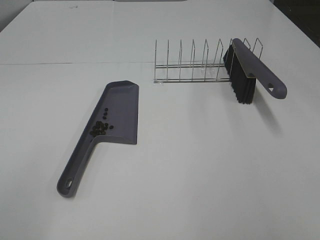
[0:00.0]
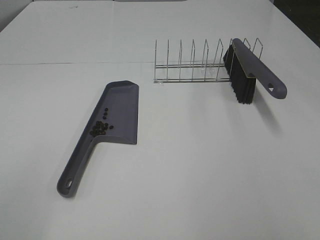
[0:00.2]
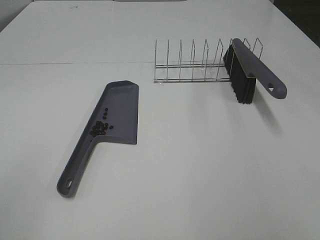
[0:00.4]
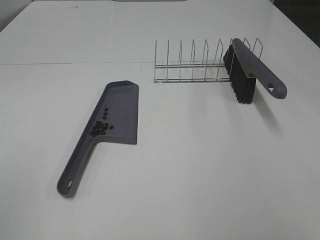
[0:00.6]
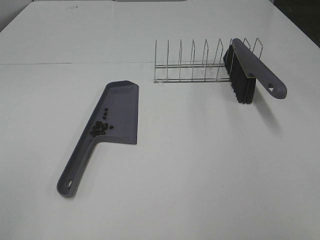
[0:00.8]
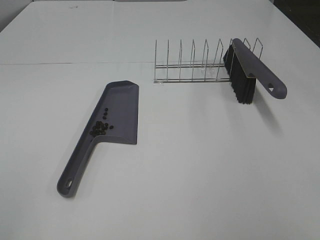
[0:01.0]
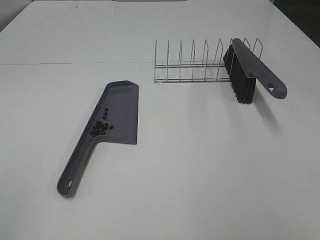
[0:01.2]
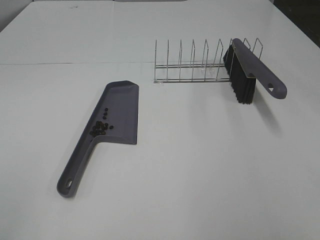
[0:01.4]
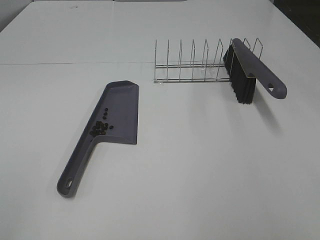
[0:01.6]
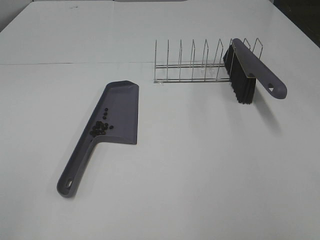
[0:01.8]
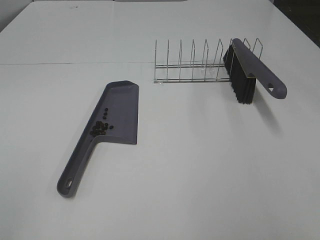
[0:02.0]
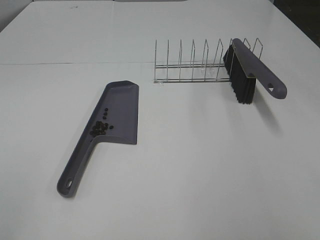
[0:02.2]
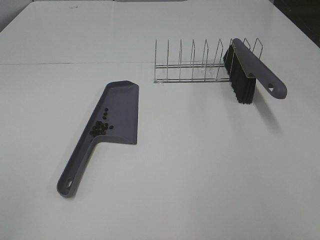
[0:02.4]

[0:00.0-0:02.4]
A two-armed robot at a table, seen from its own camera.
Task of the whole recording: Sweep Coffee Bean.
0:01.2 to 0:02.4: Both grippers stay put.

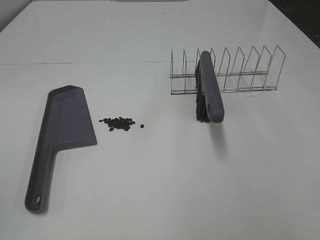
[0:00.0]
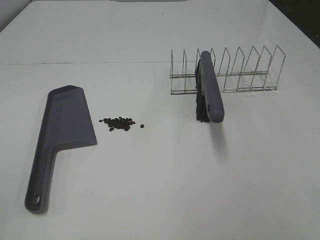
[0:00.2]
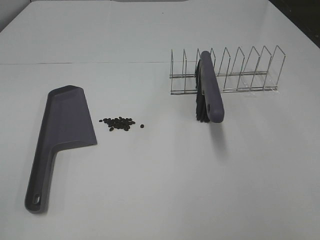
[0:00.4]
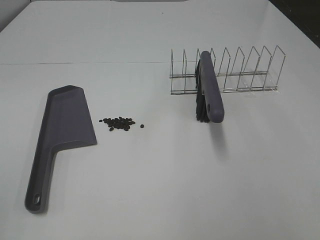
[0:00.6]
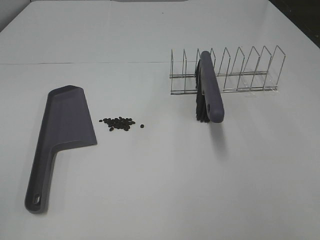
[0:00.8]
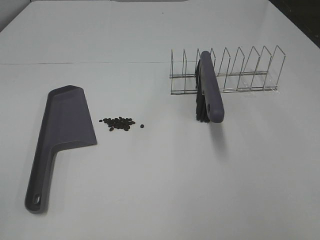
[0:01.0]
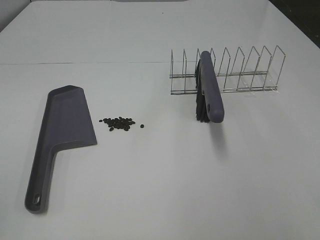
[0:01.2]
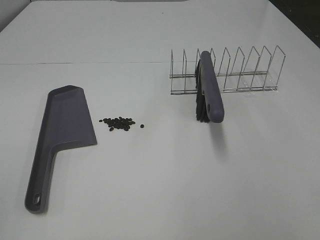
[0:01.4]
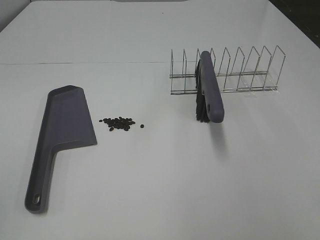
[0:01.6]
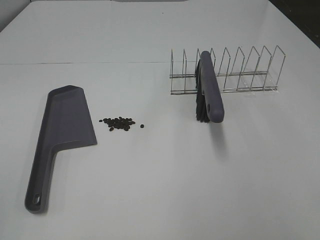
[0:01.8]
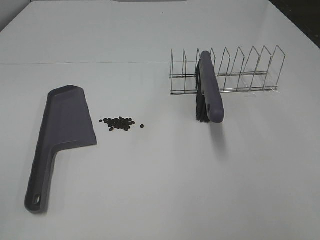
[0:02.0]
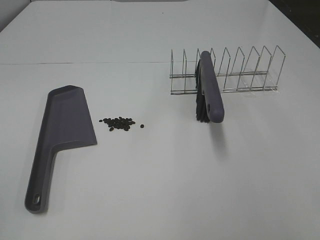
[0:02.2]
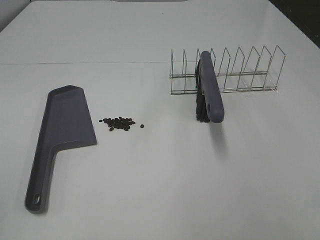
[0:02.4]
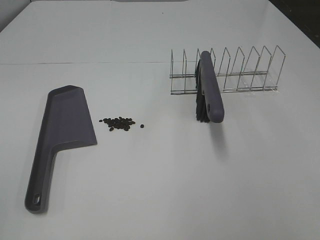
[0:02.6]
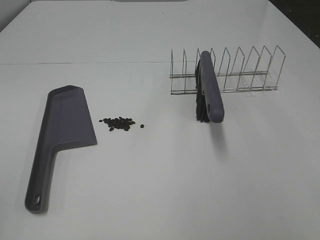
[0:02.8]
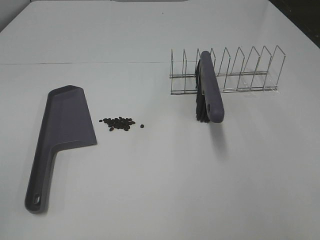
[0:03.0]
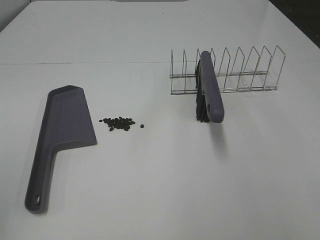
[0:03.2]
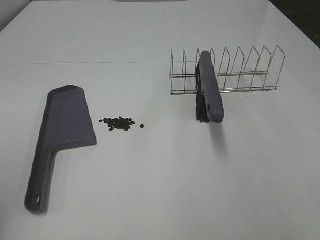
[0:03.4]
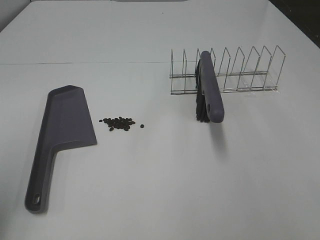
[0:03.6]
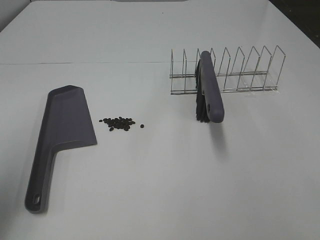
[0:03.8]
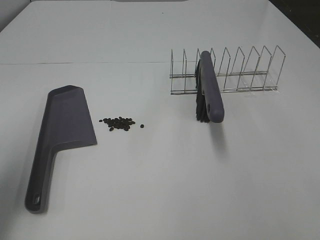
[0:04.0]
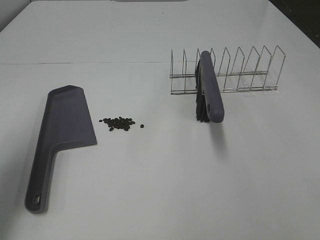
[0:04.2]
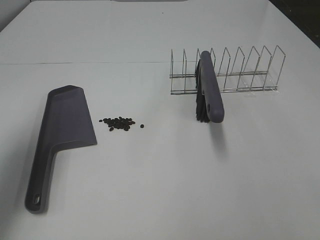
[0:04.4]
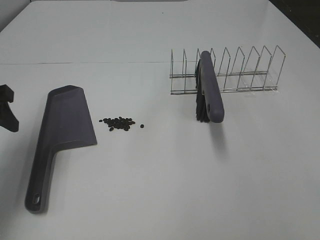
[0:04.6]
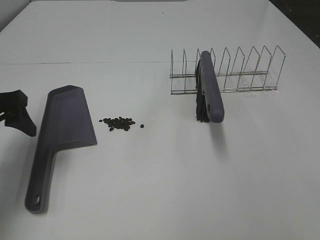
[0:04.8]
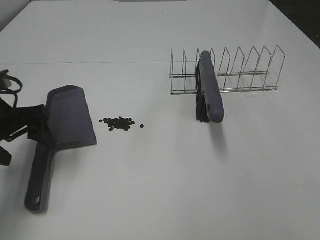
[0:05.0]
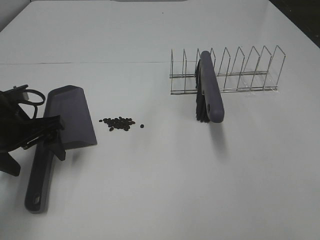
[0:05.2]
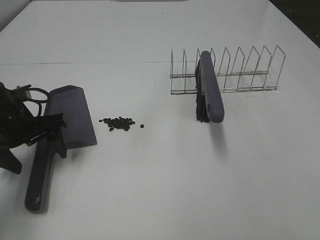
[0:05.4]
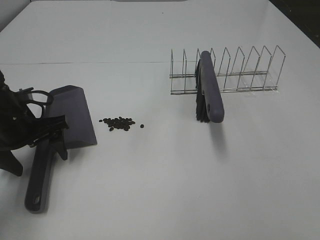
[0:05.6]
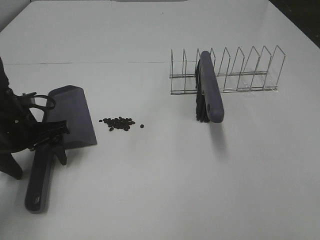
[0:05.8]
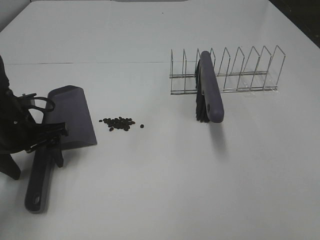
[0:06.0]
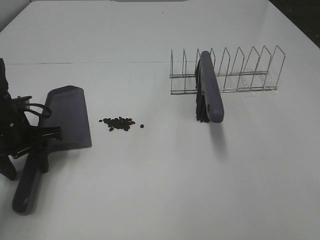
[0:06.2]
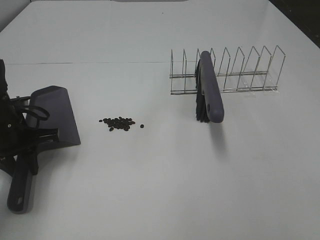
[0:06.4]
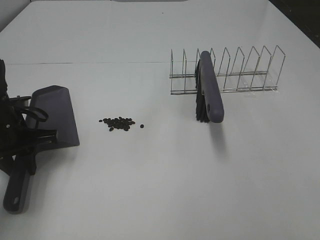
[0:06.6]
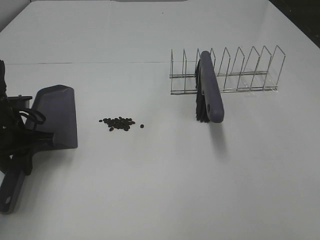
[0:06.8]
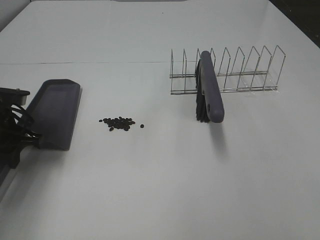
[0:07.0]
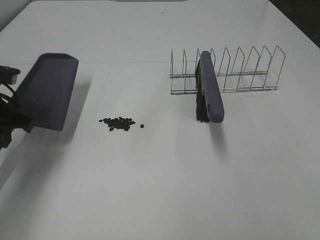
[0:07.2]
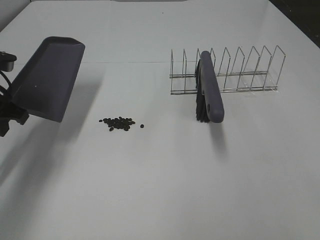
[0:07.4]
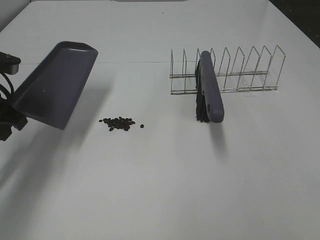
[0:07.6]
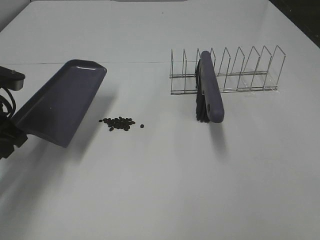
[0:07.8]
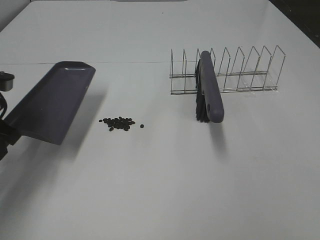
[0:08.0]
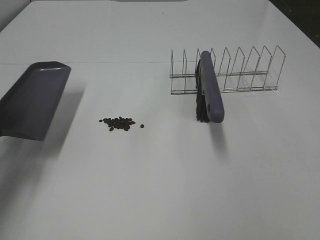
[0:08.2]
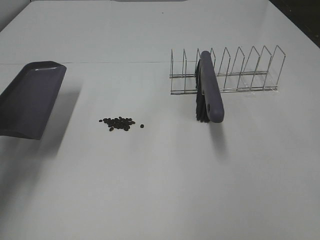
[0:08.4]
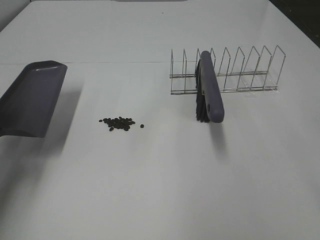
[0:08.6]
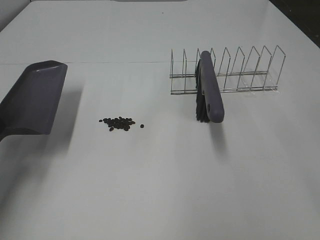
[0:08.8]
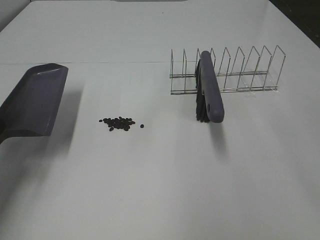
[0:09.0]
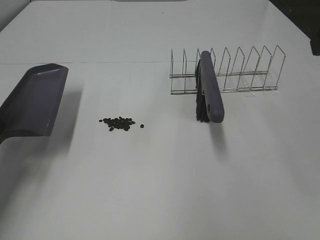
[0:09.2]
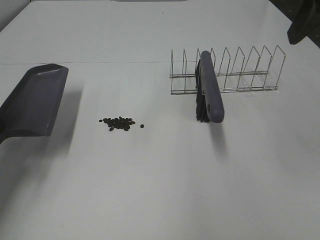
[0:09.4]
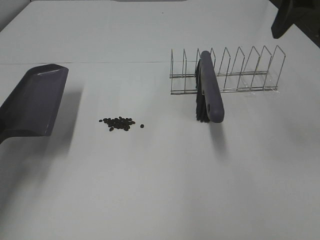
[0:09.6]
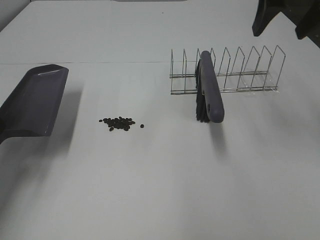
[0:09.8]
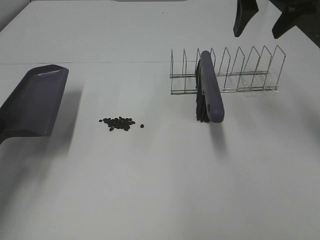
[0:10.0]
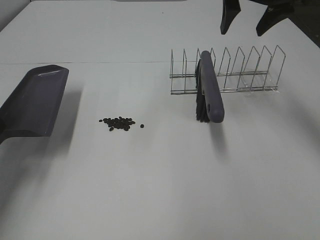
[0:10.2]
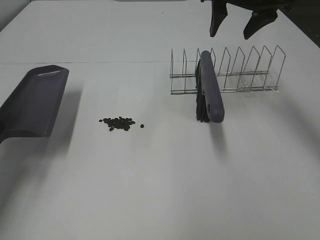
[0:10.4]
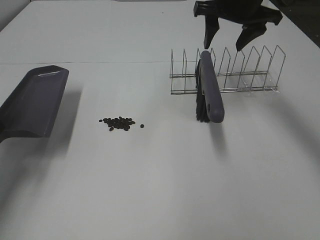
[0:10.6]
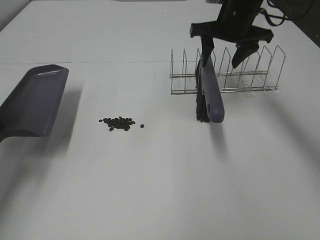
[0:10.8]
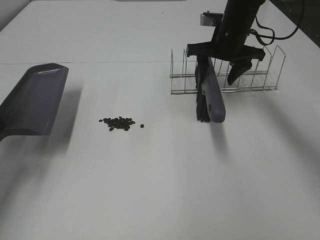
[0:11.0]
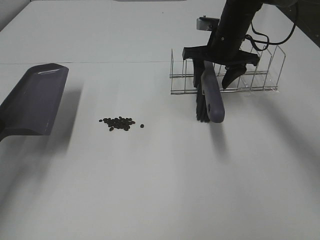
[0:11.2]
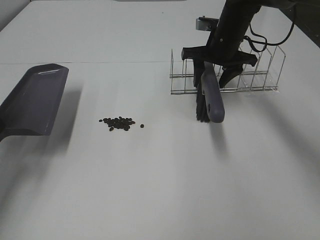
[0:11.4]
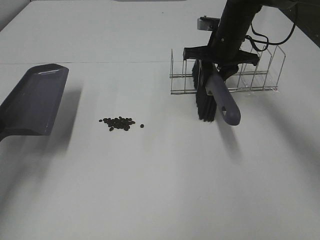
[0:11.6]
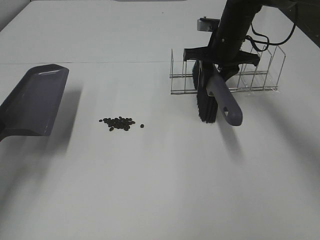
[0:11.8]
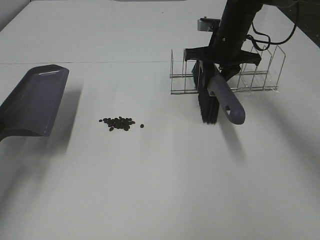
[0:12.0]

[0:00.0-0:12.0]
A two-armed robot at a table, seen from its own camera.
Task of the whole recording: Sweep Coffee Bean.
Step, 0:00.0 to 0:06.4: Left hand: grab the dustpan.
Step, 0:07.8 to 0:11.4: Right hand:grab the broom.
0:00.0 to 0:01.6: Both grippers stay about where they are.
0:03.0 to 0:04.4: The left gripper moves forward, approximately 25 cm.
0:04.4 to 0:06.0: The left gripper moves downward, forward and to the right, roughly 15 cm, and opens its fingers.
0:06.0 to 0:07.6: The left gripper travels upward by about 10 cm, and closes its fingers.
0:07.6 to 0:09.0: The left gripper shifts by about 5 cm.
0:09.0 to 0:10.4: The right gripper heads forward, covering roughly 25 cm.
0:10.4 to 0:12.0: The right gripper is displaced downward by about 10 cm, and closes its fingers.

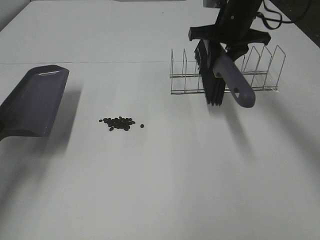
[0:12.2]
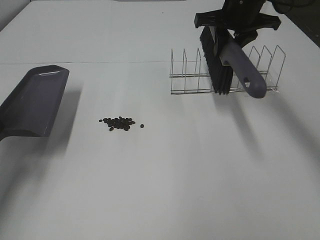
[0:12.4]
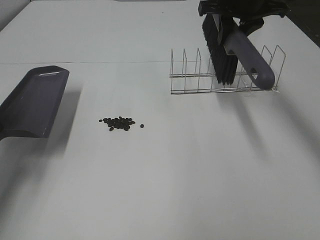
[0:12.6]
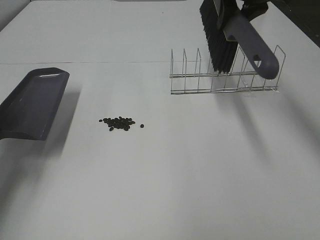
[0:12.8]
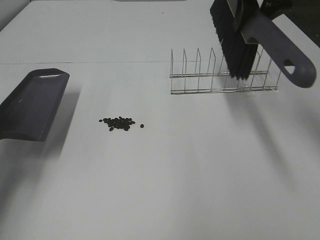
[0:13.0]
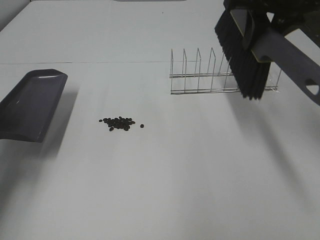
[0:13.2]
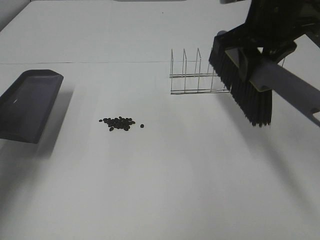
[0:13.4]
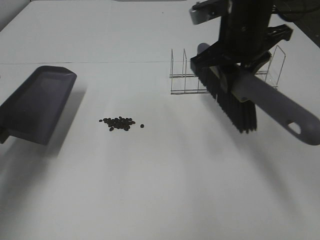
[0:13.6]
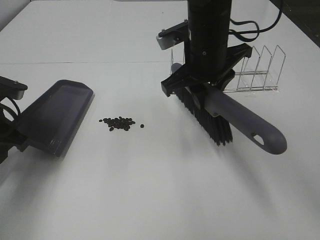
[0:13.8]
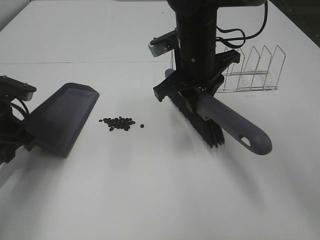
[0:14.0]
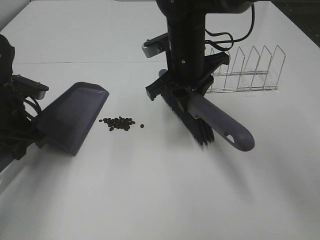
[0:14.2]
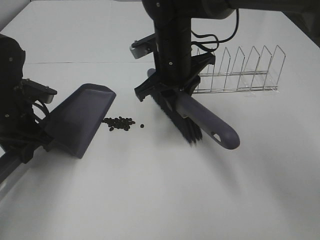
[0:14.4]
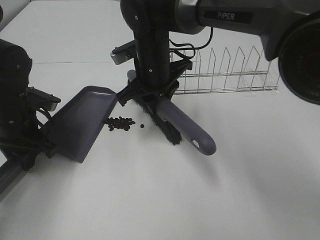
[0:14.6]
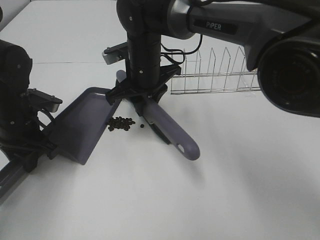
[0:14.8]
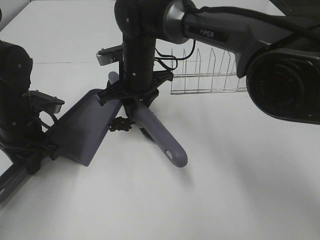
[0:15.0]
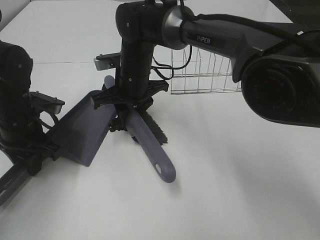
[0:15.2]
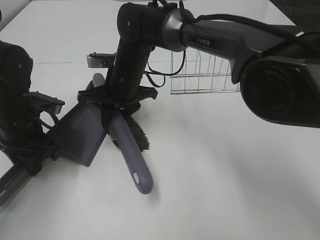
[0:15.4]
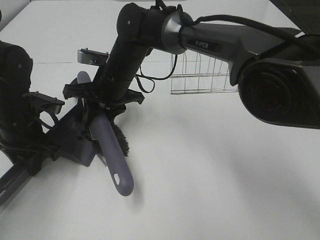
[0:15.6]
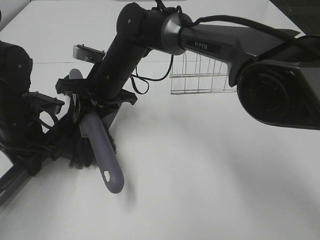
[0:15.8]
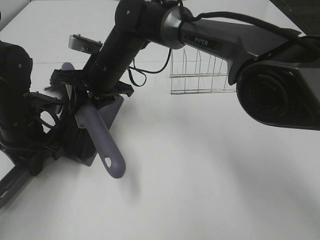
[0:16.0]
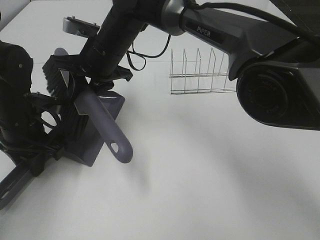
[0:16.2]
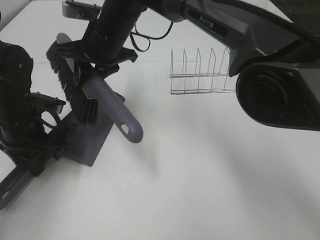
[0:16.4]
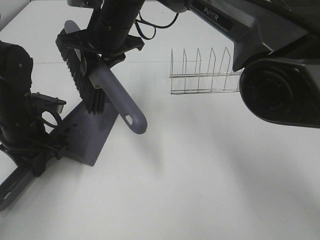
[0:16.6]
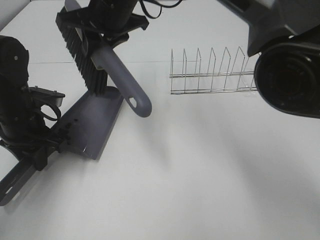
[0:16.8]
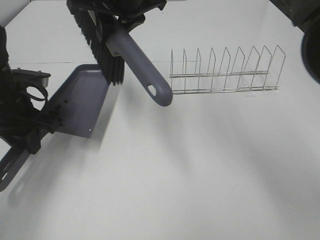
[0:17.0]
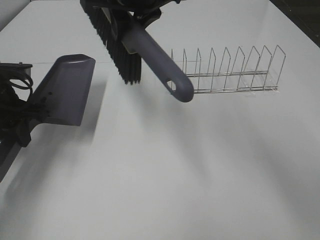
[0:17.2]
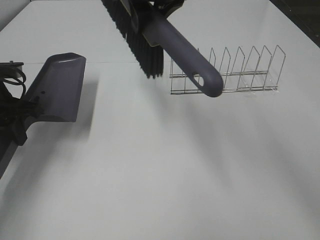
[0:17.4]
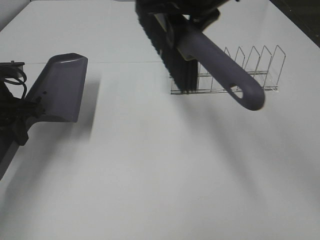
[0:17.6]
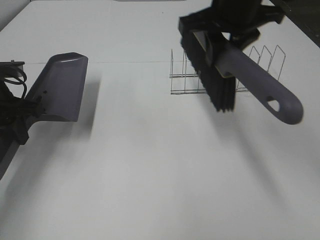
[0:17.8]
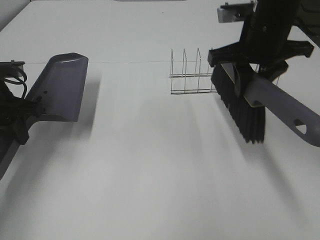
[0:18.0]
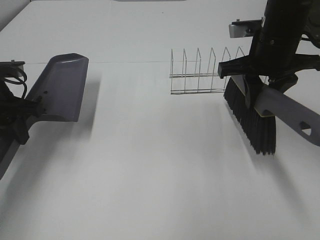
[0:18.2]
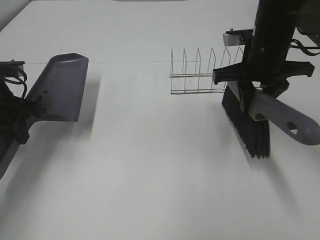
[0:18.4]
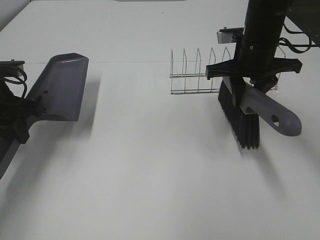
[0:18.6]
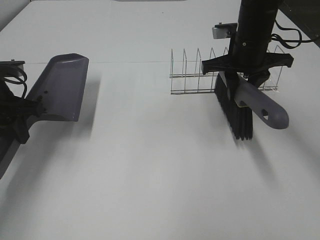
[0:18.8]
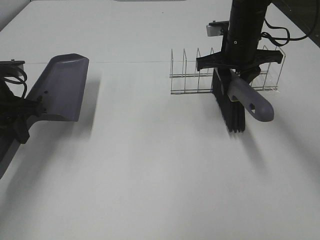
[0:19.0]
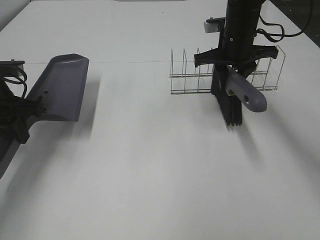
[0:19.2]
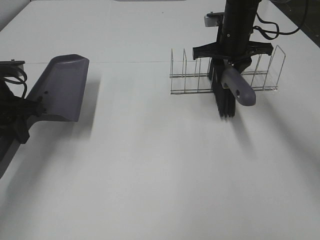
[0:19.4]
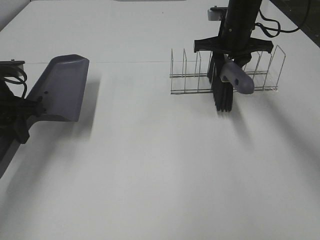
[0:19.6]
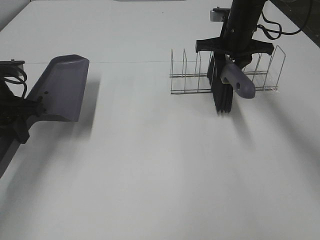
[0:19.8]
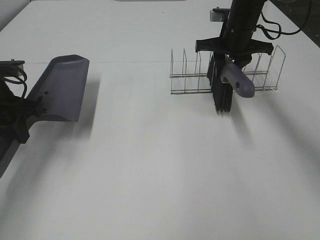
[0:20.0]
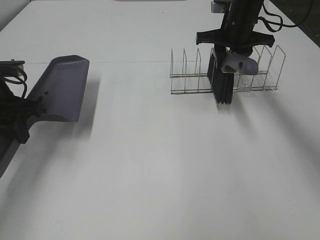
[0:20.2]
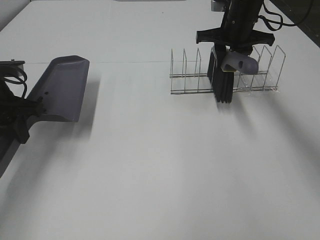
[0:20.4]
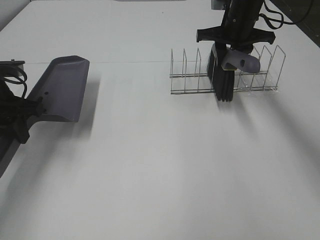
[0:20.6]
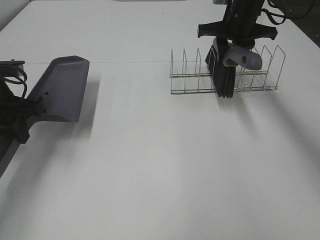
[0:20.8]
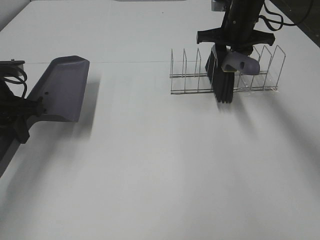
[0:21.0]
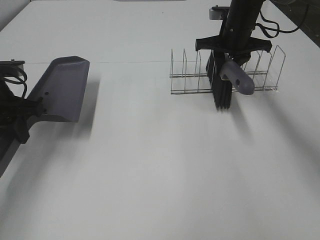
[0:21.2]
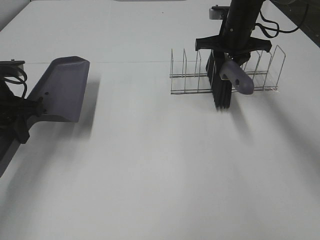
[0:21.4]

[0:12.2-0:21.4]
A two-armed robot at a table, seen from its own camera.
Task of the whole recording: Sweep Coffee Bean.
Step, 0:12.2 to 0:14.6: Left hand: move the dustpan to the left side of the coffee beans.
Step, 0:12.2 to 0:16.4: Right hand:sweep the coffee beans into the dustpan.
0:12.2 to 0:13.8: The right gripper moves backward and to the left, about 15 cm; the left gripper ends up about 5 cm from where it was.
0:13.8 to 0:15.2: The left gripper changes place by some 5 cm; the right gripper is displaced to the left, downward and forward by some 15 cm.
0:15.2 to 0:16.8: The right gripper is displaced upward by some 15 cm.
0:16.8 to 0:18.4: The left gripper changes place by about 5 cm. The right gripper moves to the right, roughly 25 cm.
0:18.4 to 0:19.8: The right gripper heads forward, covering approximately 10 cm.
0:19.8 to 0:21.4: There are only small adjustments of the grippers.
